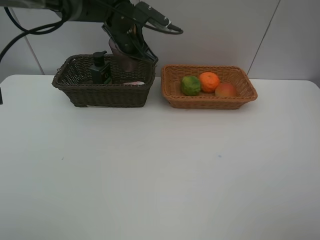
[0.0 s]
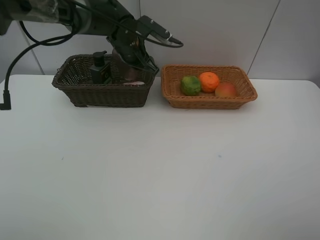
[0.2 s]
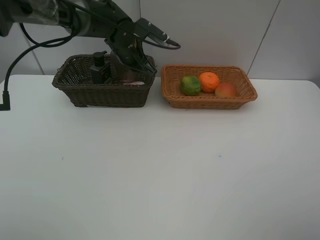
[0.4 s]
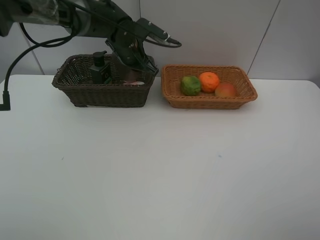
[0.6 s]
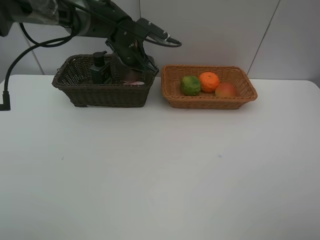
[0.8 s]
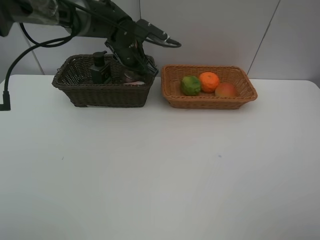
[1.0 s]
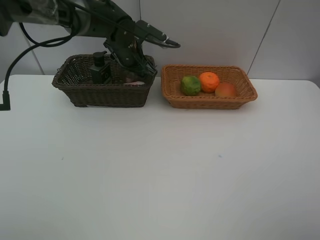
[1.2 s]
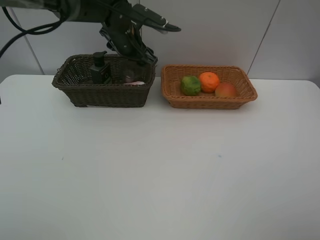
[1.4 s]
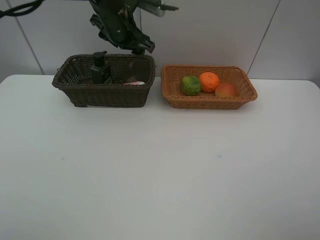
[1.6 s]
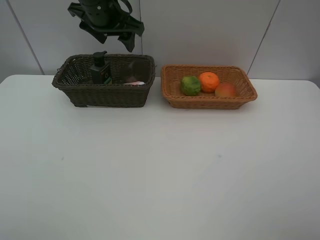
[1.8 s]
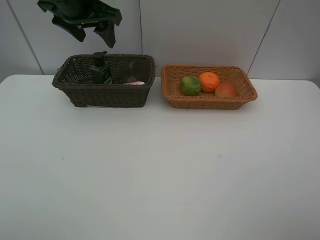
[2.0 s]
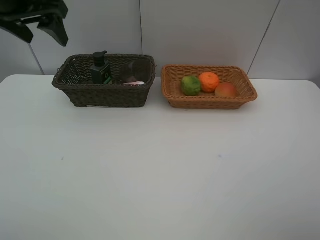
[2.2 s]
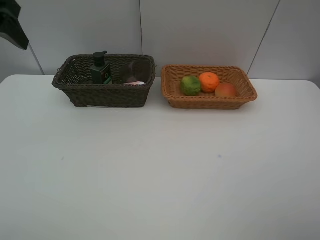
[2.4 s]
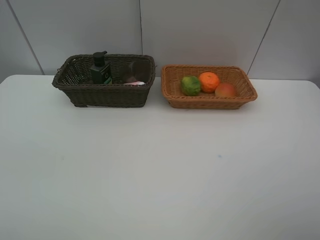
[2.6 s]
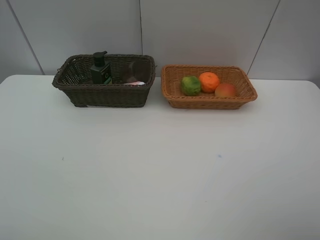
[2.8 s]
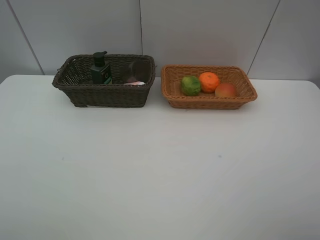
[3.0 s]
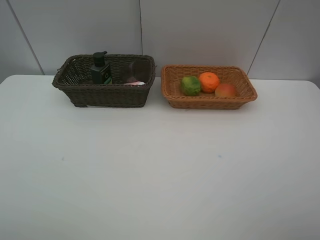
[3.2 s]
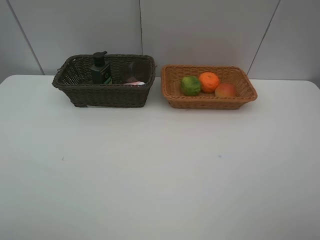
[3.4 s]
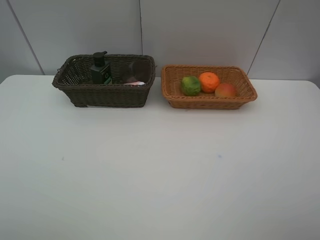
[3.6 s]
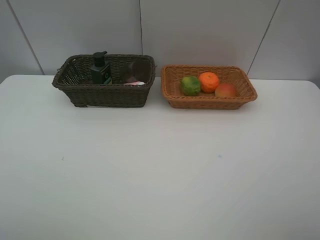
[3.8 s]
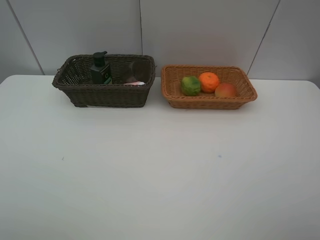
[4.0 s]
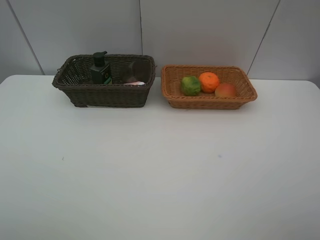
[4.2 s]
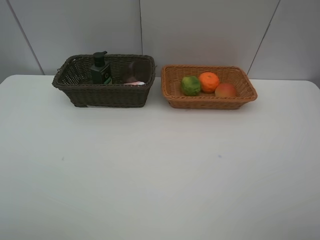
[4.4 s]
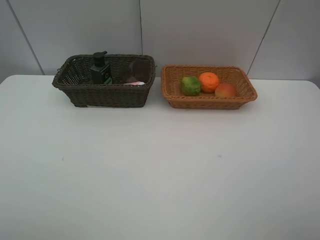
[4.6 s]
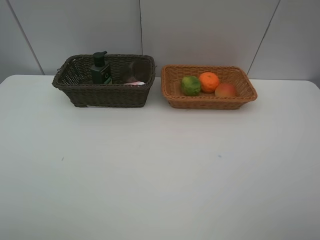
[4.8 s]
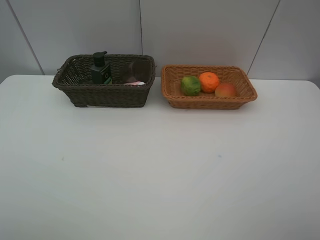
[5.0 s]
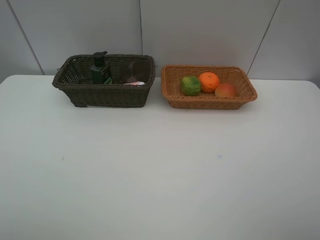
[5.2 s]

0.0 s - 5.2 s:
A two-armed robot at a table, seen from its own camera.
Task of the whole recording: place multiple objects separately in different baskets.
0.0 s - 1.8 s: The left gripper moves upward and to the left, roughly 10 cm, and opens.
1.8 s - 3.4 s: The left gripper goes about 50 cm backward and to the left.

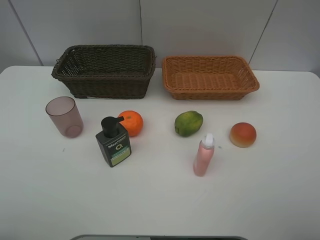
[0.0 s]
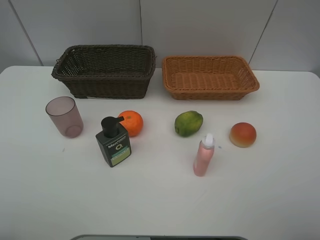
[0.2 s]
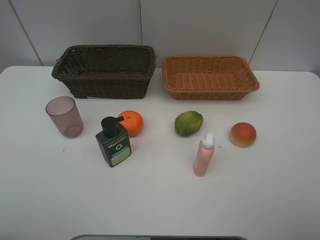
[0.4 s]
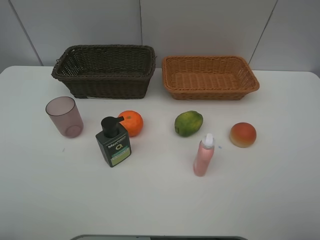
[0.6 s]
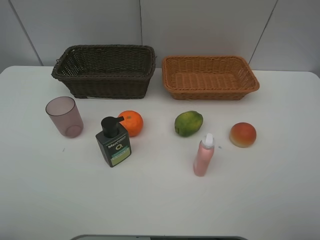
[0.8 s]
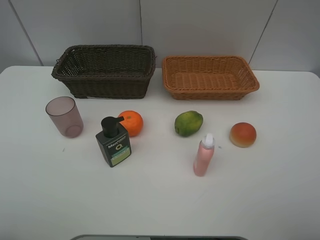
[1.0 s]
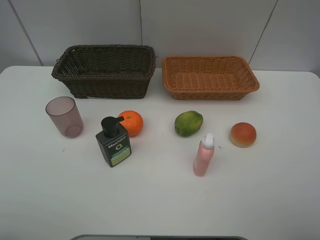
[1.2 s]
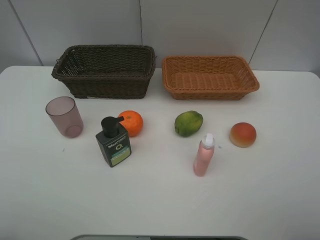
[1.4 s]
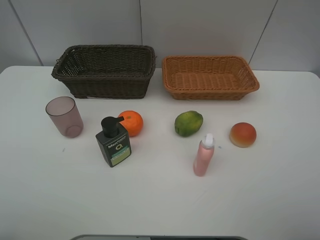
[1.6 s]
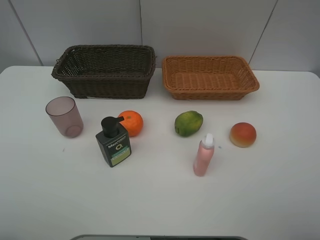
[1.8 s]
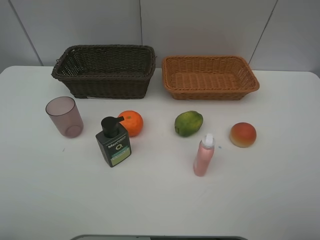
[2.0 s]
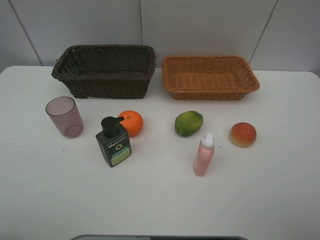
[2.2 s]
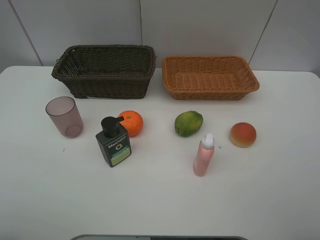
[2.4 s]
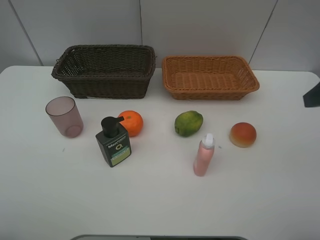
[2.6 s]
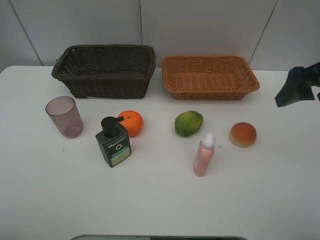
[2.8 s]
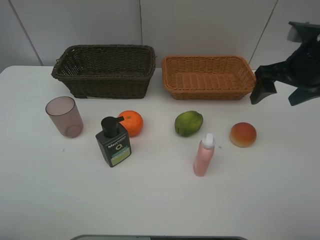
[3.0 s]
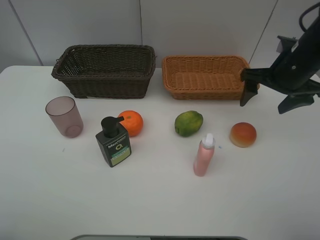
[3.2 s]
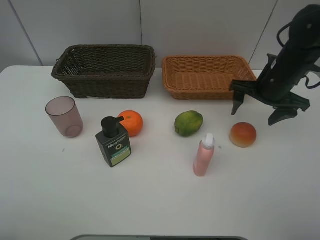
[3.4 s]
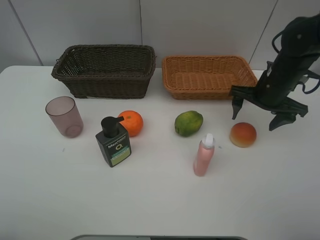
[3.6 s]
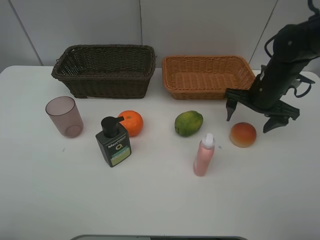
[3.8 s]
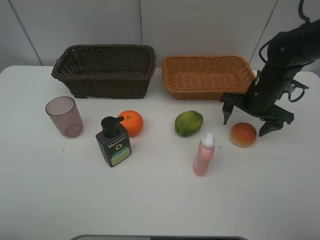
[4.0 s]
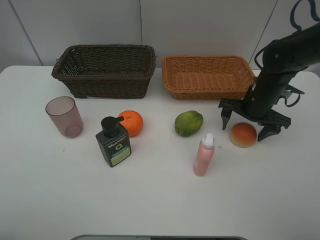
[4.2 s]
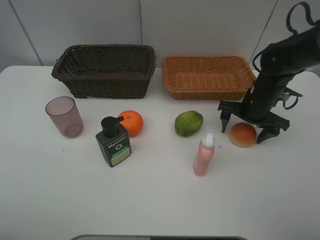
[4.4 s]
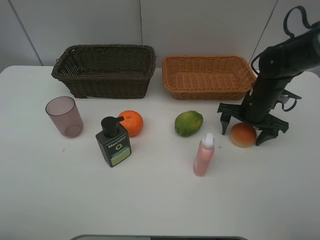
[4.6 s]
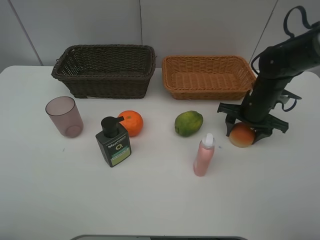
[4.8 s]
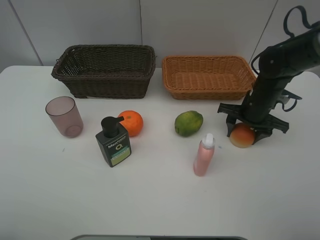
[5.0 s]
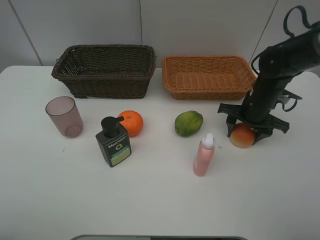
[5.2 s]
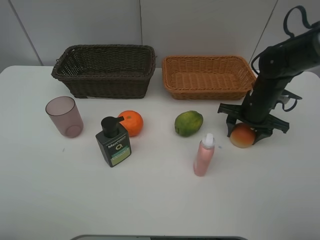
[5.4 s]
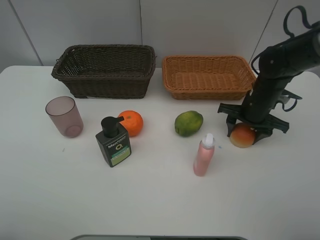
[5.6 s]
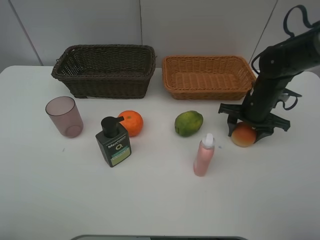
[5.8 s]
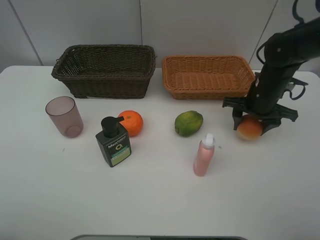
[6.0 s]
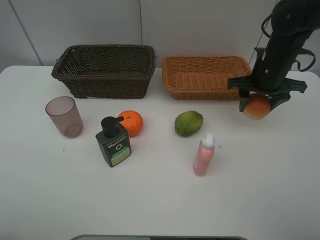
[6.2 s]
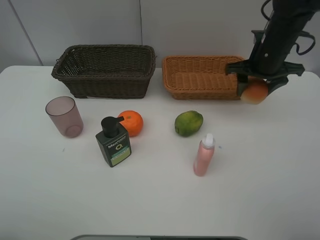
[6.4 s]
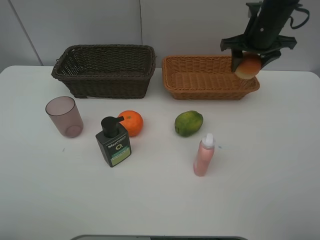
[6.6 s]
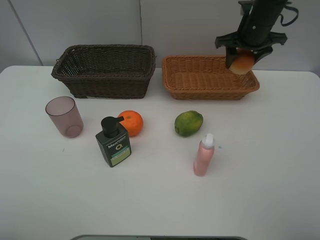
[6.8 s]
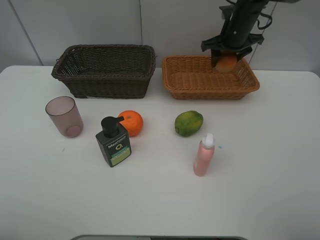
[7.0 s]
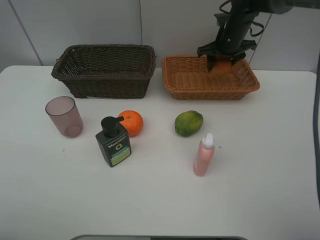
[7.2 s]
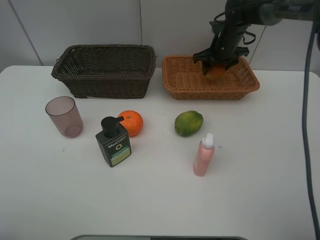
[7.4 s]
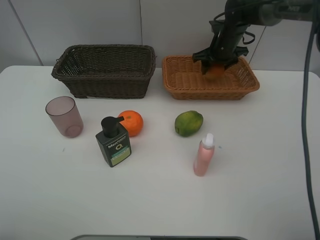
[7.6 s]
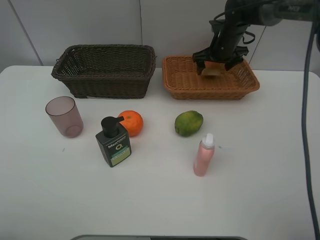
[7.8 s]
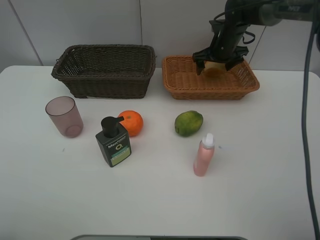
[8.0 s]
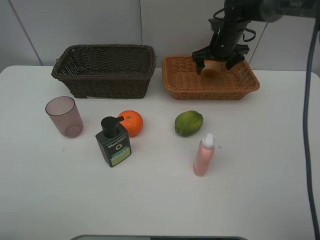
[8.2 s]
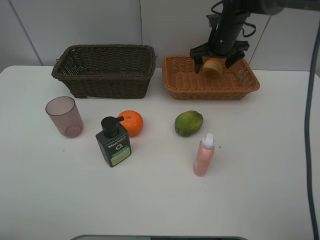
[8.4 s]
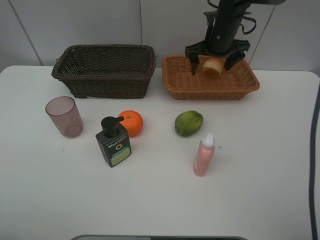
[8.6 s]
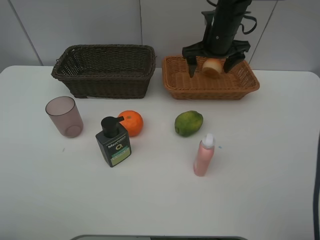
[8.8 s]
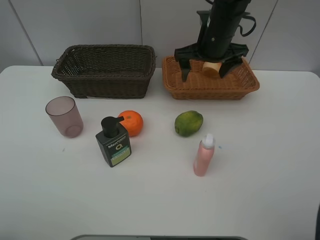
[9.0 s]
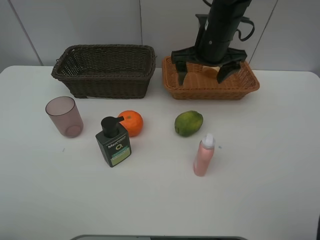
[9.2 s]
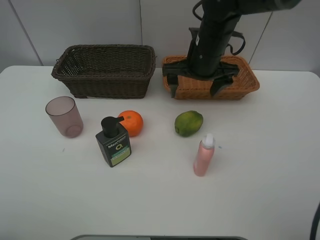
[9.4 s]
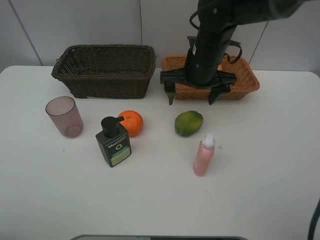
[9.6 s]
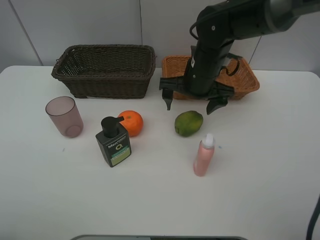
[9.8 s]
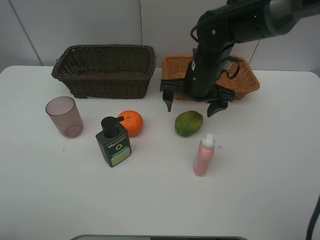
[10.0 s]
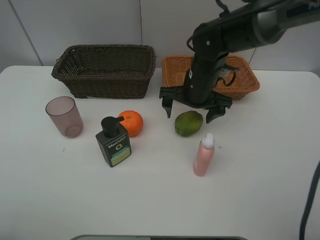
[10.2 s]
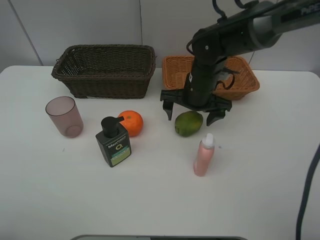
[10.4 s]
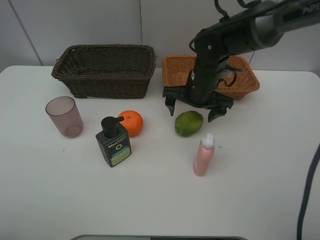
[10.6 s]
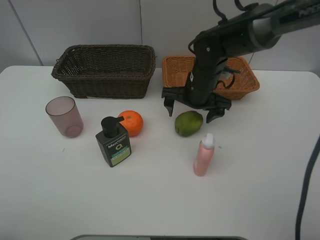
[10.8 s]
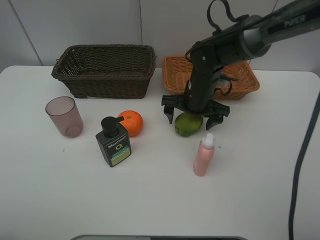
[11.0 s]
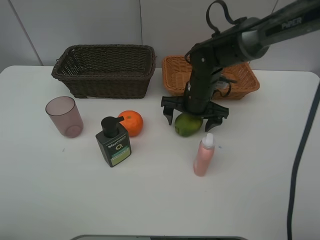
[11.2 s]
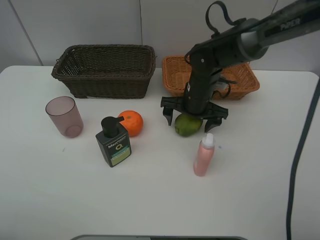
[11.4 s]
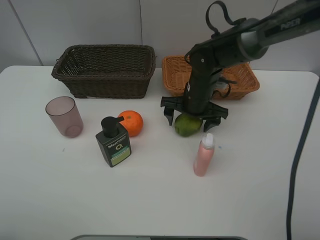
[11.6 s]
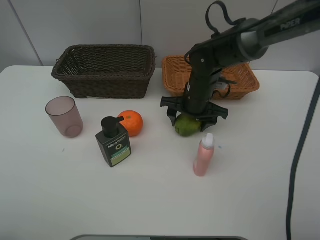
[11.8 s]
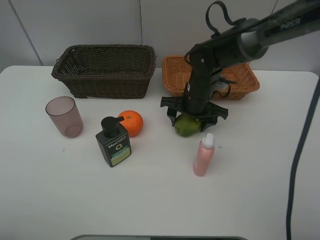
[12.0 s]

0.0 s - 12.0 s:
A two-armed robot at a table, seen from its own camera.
Task of the whole recording: place multiple objects separately in different baskets.
0.0 s - 1.6 s: Both grippers stay put.
1.6 s - 3.0 s: The right gripper is displaced forward by about 30 cm.
3.0 s - 4.4 s: The right gripper moves downward, approximately 15 cm.
4.4 s - 6.0 s: The right gripper closes.
6.0 s - 7.6 s: The right gripper shifts roughly 15 cm forward.
7.6 s - 9.0 s: The right gripper goes approximately 15 cm backward, upward and to the left, and opens up.
9.0 s - 10.4 s: The right gripper goes some 10 cm downward.
10.4 s - 12.0 s: The right gripper closes.

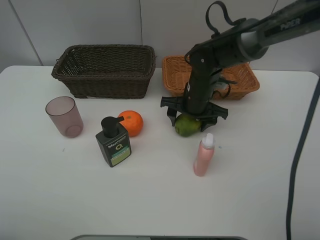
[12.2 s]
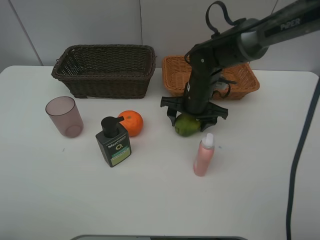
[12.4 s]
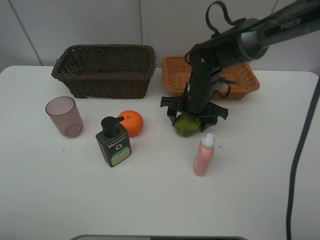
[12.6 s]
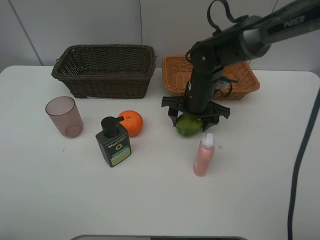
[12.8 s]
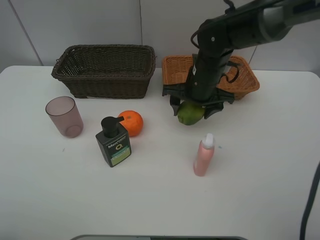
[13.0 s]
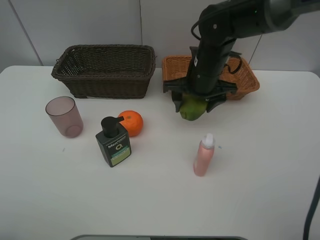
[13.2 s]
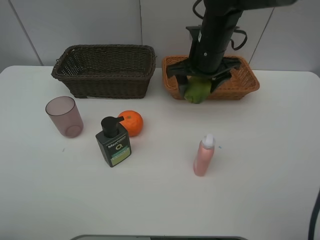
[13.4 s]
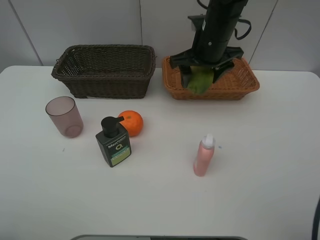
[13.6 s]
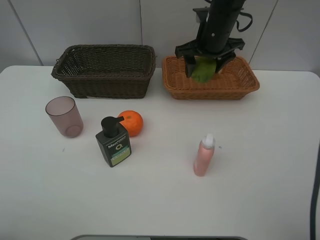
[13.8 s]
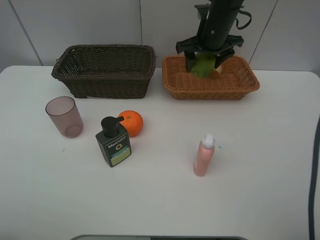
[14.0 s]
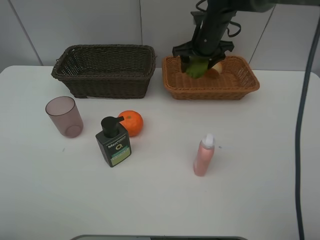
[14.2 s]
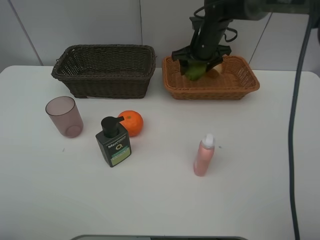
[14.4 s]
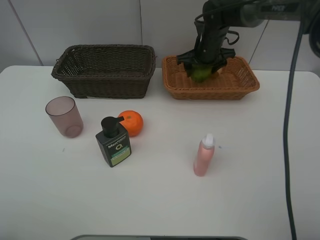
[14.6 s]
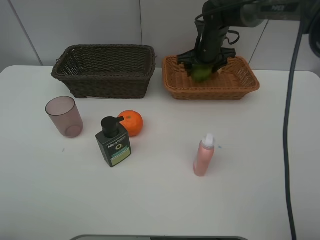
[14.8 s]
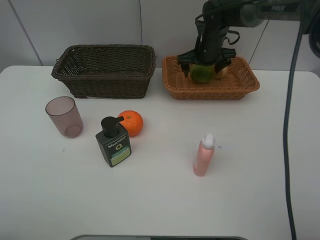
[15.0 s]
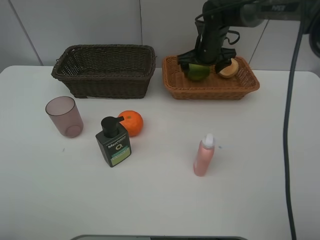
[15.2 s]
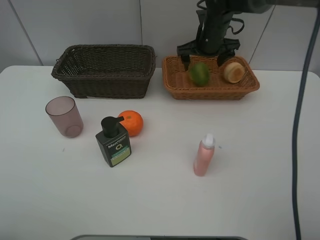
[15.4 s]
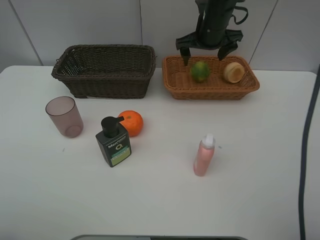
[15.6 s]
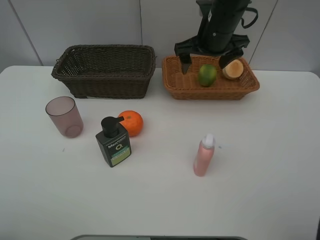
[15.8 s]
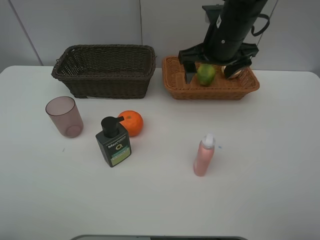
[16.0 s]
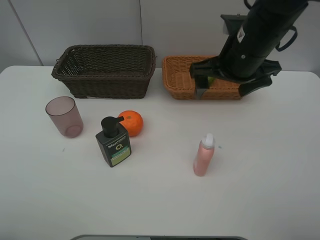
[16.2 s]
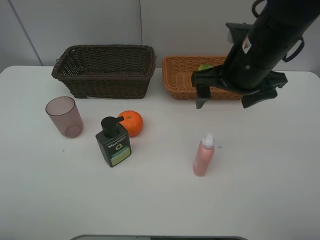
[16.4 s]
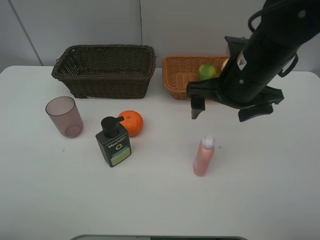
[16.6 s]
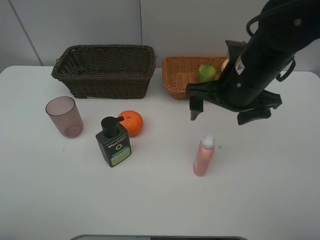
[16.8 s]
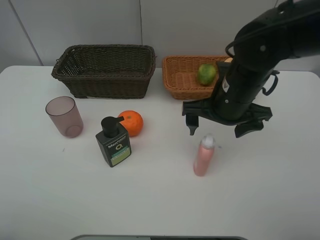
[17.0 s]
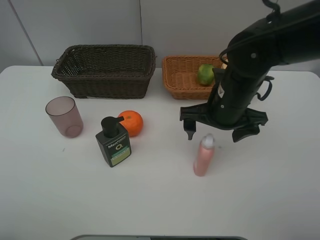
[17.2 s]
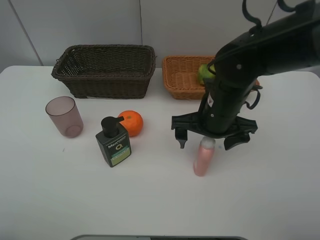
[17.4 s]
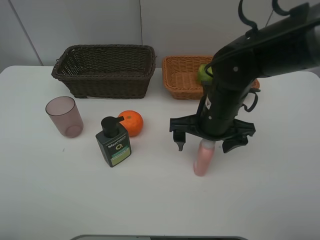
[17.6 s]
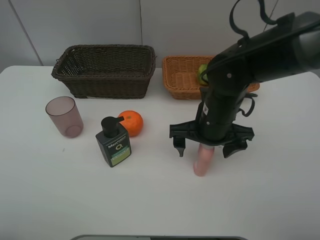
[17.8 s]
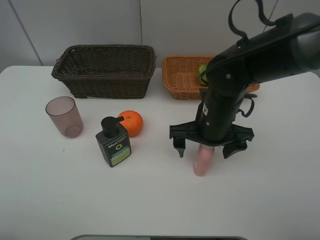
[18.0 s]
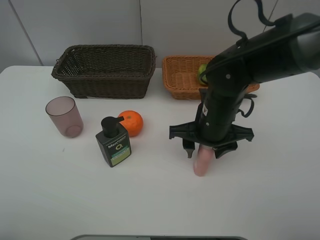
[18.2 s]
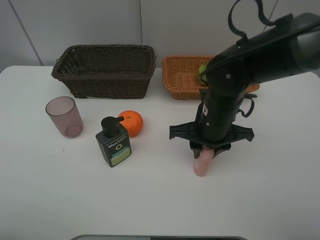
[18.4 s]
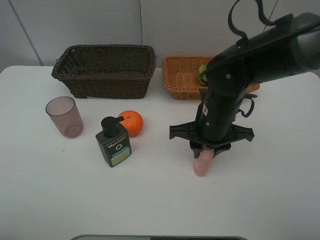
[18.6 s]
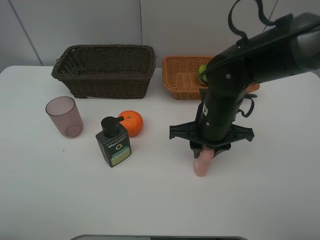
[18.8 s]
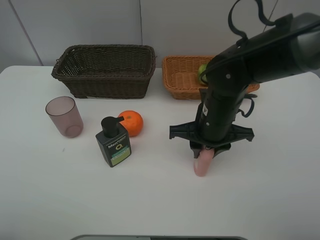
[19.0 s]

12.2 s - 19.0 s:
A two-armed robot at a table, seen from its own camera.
Task of the whole recording: place multiple objects separately in different baskets.
12.2 s - 13.6 s: The right gripper moves upward, roughly 10 cm.
13.6 s - 15.0 s: The right gripper moves forward and downward, approximately 10 cm.
15.0 s - 16.2 s: The right gripper travels backward and upward by some 20 cm.
16.2 s - 17.6 s: The right gripper is displaced downward by about 10 cm.
17.6 s - 19.0 s: The right gripper closes up.
